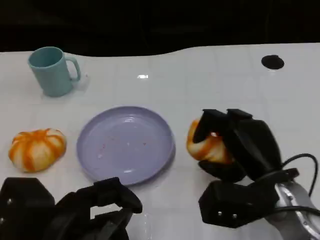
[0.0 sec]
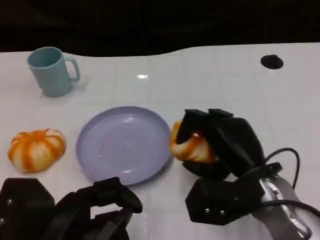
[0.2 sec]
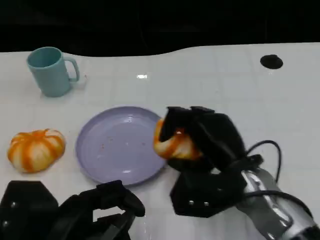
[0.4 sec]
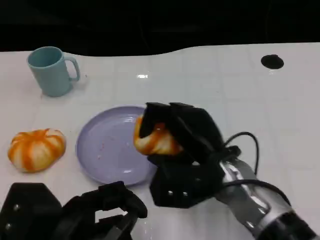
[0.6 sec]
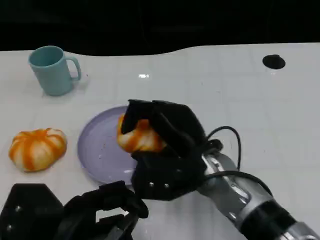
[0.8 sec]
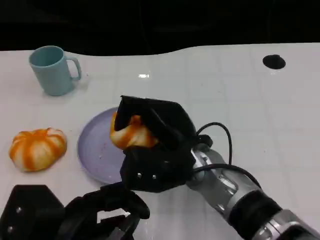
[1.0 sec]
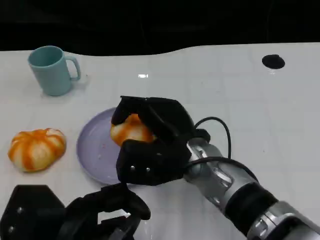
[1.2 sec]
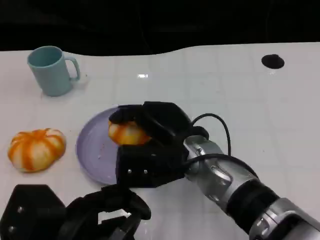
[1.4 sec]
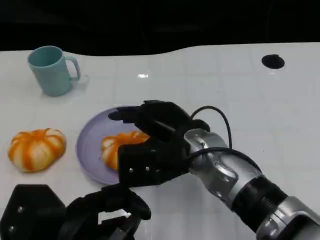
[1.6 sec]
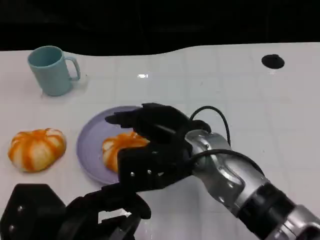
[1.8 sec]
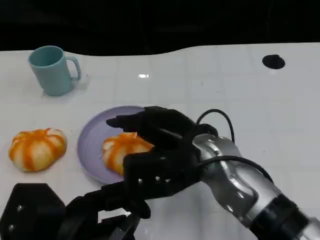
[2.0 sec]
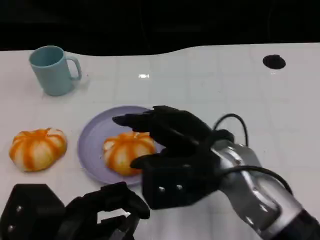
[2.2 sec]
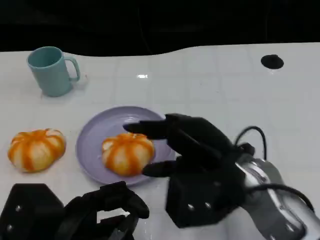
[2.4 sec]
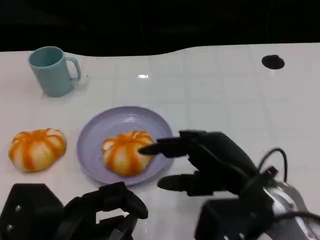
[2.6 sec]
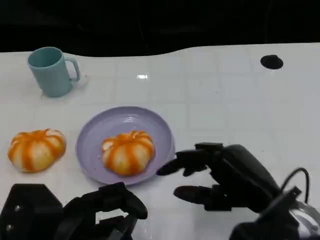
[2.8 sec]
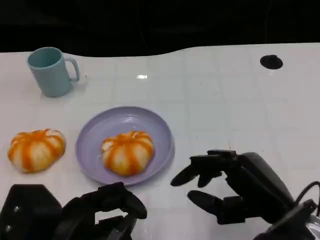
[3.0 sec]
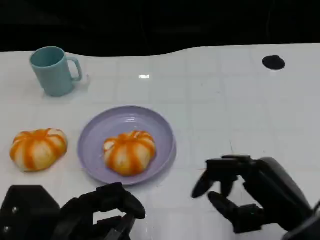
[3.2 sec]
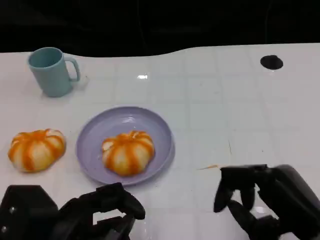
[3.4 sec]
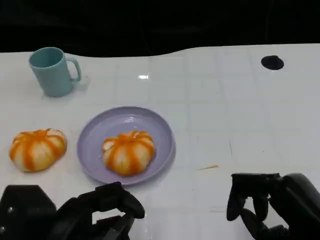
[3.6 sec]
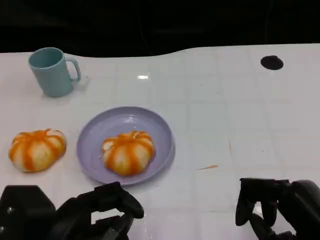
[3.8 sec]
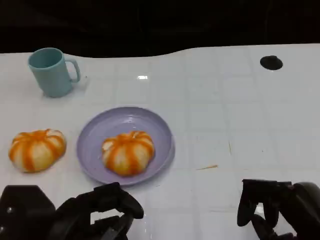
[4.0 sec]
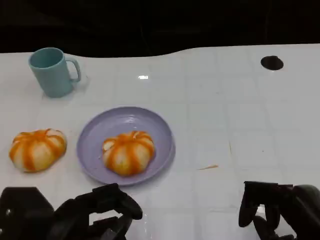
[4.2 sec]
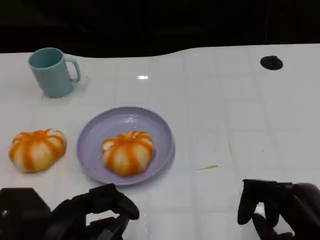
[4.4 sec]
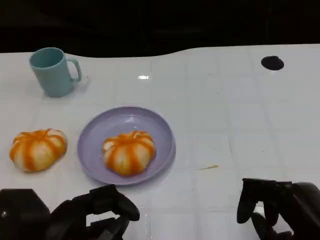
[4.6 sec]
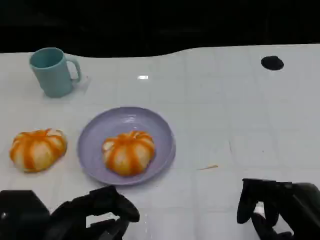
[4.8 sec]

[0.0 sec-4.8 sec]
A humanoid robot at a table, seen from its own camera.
Task of the whole recording: Grasp the bread from the table and place it into the plate.
0.0 sec to 1.6 sec: The right hand goes approximately 10 cm to the left.
1.6 sec to 3.2 sec: The right hand goes some 20 cm to the right and backward.
3.2 sec to 4.8 sec: The hands make only small movements.

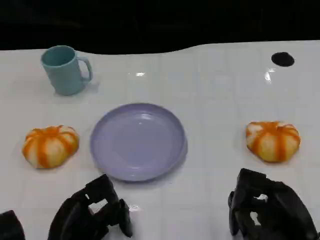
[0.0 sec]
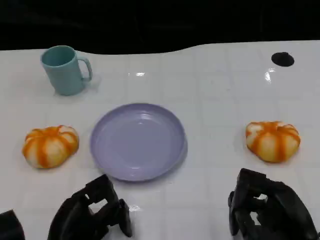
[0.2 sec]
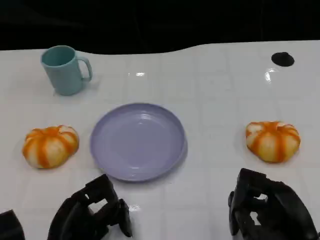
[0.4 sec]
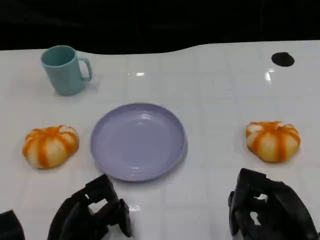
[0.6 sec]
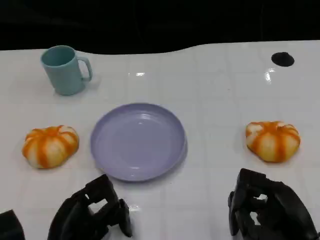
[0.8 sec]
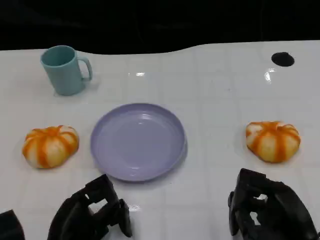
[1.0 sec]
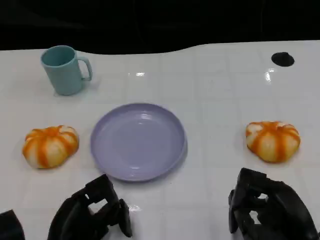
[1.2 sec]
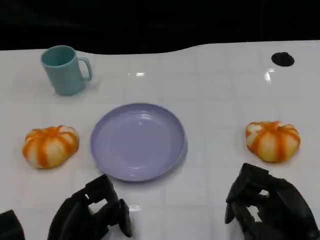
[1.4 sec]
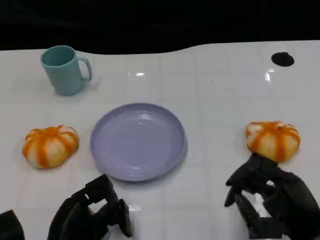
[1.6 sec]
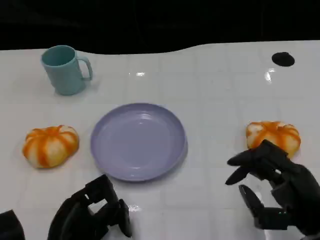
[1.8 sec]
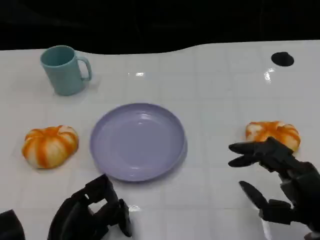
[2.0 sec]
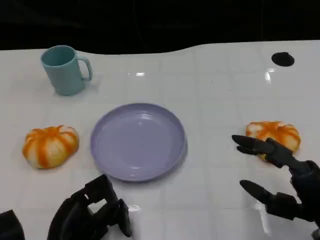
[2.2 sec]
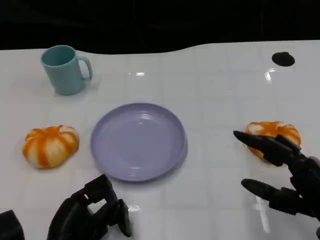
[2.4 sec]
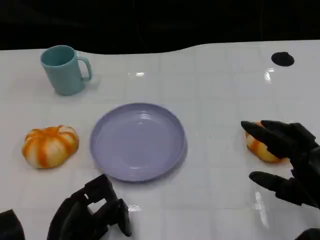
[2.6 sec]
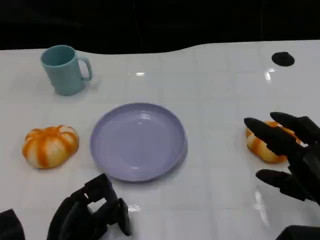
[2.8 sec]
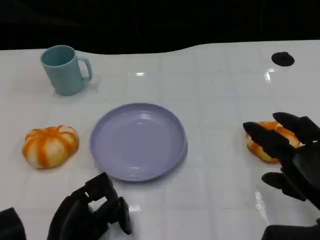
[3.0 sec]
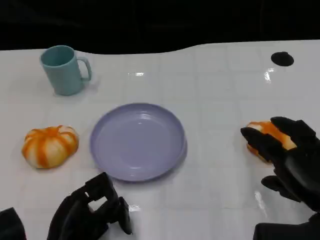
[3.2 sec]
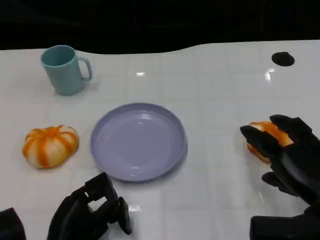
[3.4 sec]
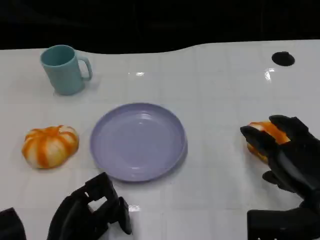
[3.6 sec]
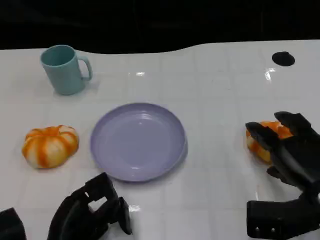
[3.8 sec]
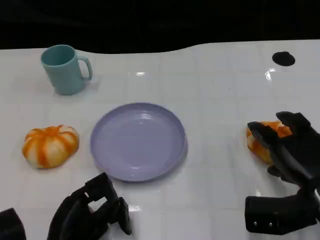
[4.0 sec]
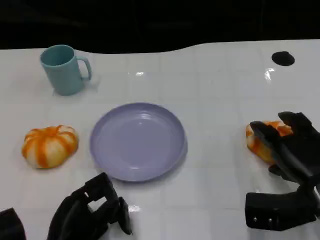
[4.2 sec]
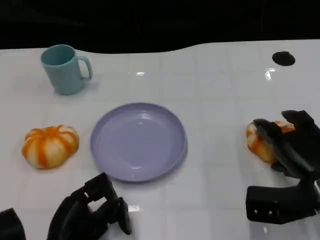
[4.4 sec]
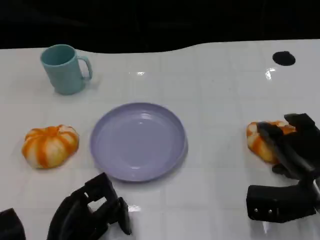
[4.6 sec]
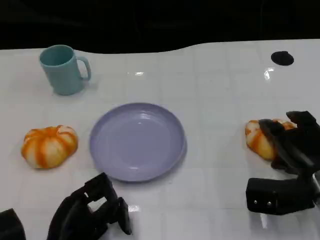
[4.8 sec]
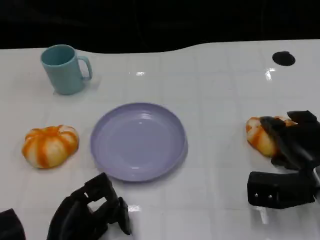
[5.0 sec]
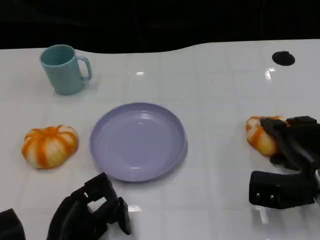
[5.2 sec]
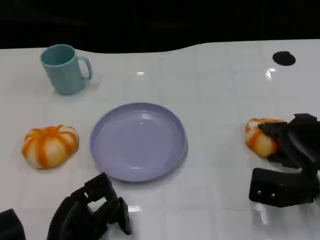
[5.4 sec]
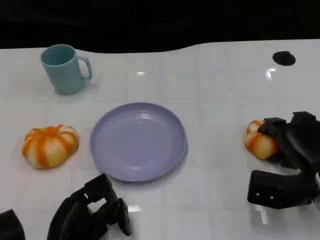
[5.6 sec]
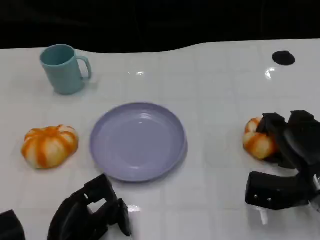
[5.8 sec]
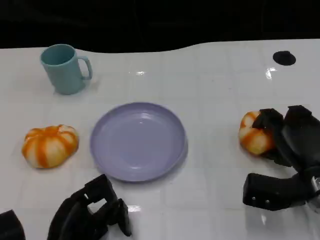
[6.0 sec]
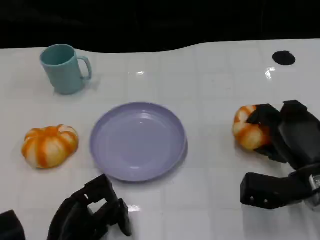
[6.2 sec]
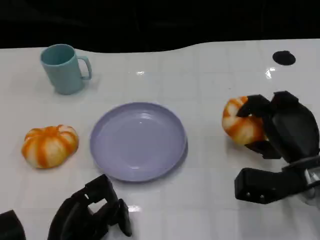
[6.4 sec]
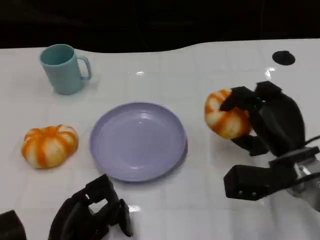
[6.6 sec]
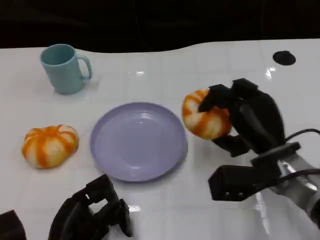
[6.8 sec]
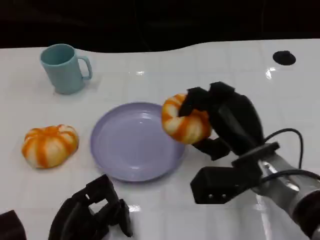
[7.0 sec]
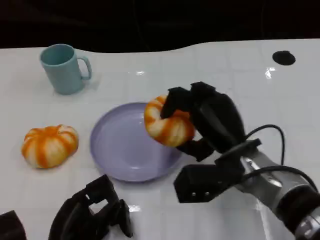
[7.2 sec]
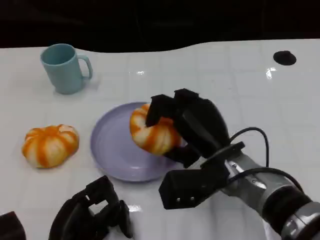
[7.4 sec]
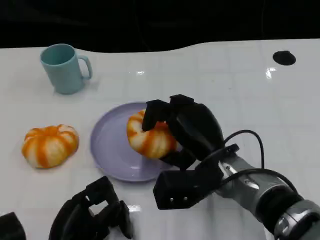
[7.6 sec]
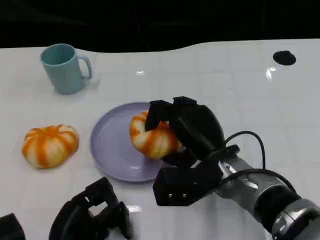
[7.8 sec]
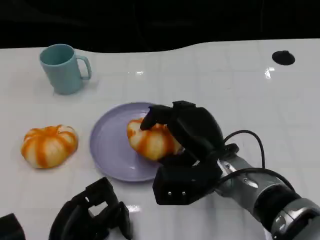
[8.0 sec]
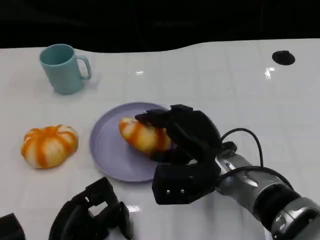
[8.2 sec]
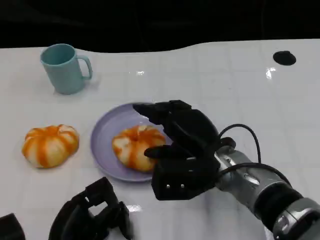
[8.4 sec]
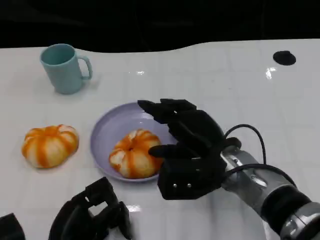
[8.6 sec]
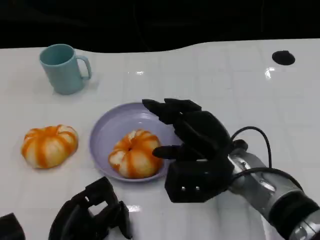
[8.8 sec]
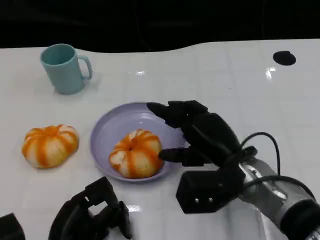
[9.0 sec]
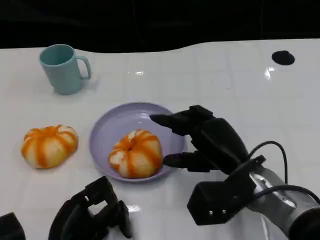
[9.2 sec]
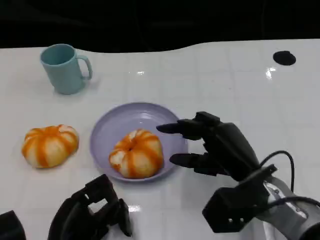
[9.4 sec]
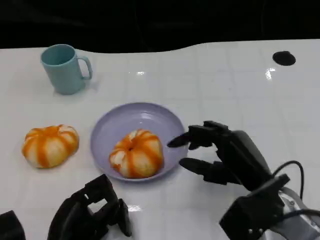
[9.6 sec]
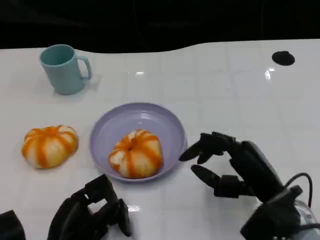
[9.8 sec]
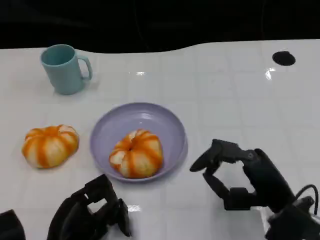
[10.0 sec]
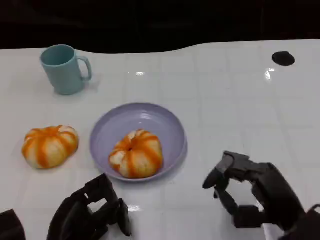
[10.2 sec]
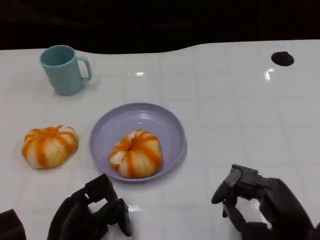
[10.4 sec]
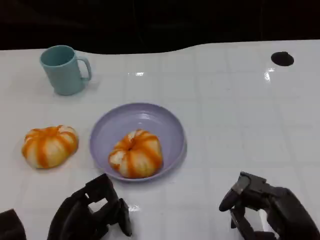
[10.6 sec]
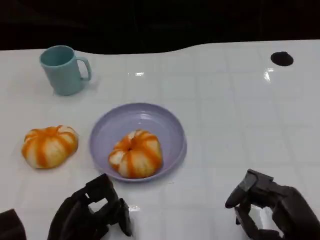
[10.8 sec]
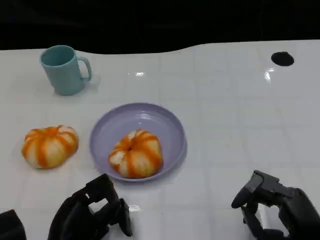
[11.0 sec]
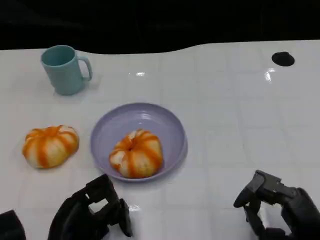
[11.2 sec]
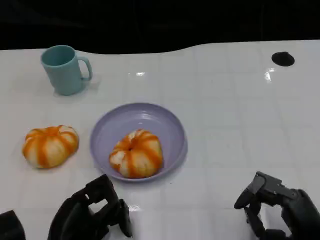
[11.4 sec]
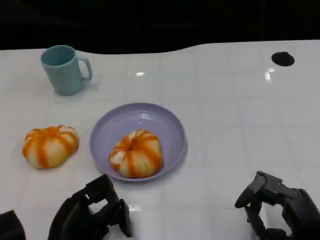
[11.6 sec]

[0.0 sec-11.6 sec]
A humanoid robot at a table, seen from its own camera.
Task of the whole recording: Grasp the bread from the table and place it into the plate.
0.0 sec to 1.4 sec: Both hands stay about where they are.
1.4 sec to 2.8 sec: The right hand is displaced upward by roughly 5 cm.
2.8 sec to 4.4 sec: The right hand heads forward, covering approximately 5 cm.
4.4 sec to 5.8 sec: The hands make only small movements.
5.8 sec to 7.2 sec: The right hand shifts roughly 15 cm to the left and upward.
8.8 sec to 10.2 sec: The right hand moves to the right and backward, some 15 cm.
10.2 sec to 11.6 sec: The hands stay close to where they were, moving slightly.

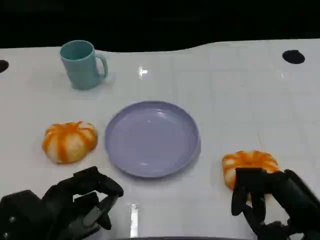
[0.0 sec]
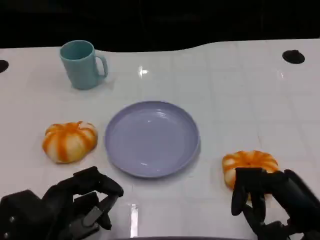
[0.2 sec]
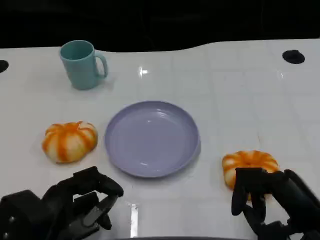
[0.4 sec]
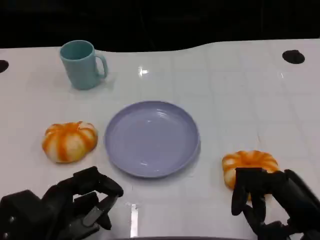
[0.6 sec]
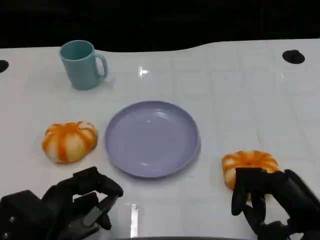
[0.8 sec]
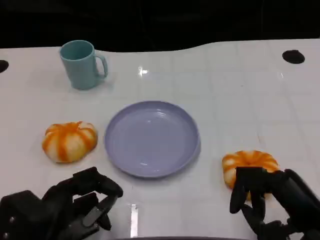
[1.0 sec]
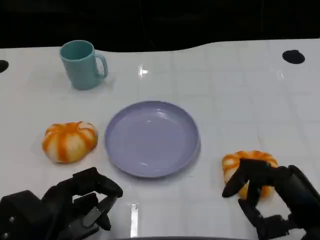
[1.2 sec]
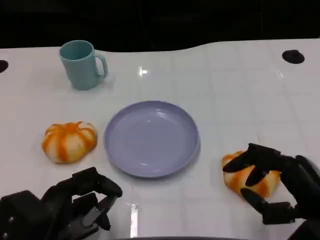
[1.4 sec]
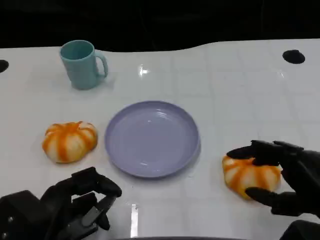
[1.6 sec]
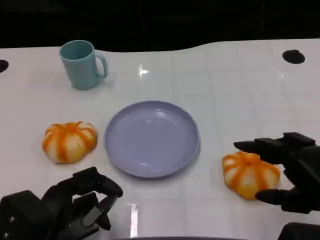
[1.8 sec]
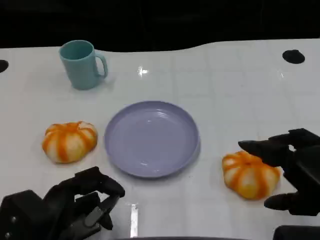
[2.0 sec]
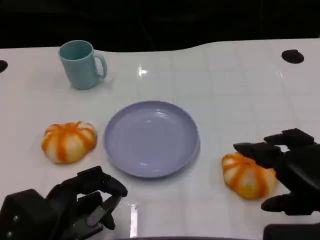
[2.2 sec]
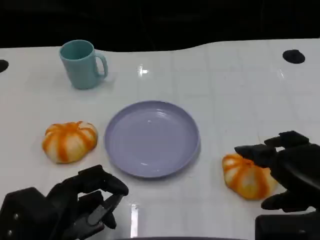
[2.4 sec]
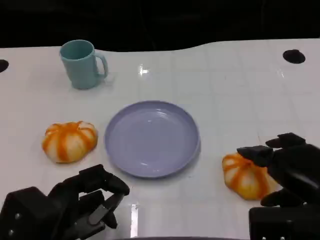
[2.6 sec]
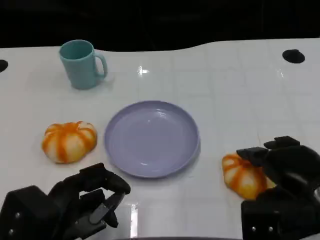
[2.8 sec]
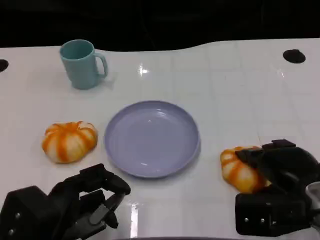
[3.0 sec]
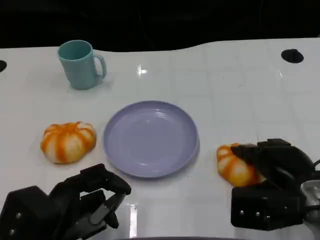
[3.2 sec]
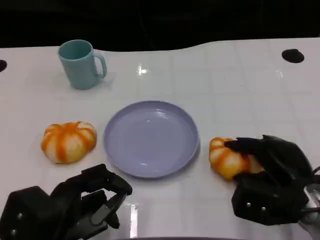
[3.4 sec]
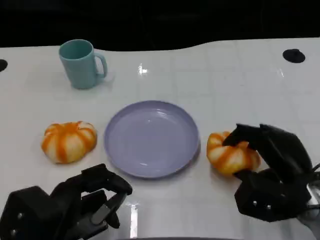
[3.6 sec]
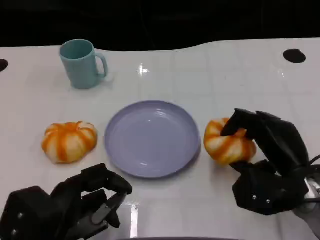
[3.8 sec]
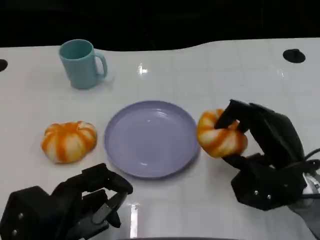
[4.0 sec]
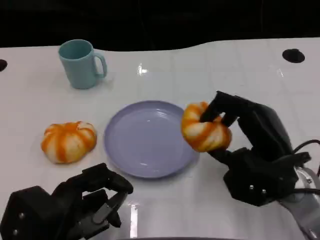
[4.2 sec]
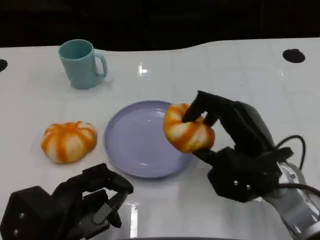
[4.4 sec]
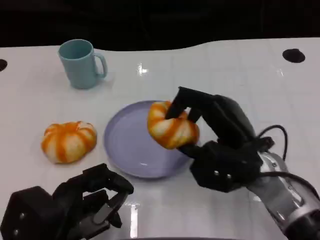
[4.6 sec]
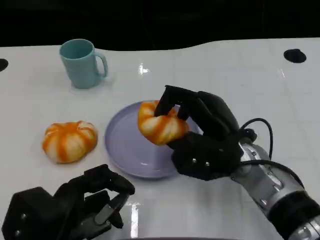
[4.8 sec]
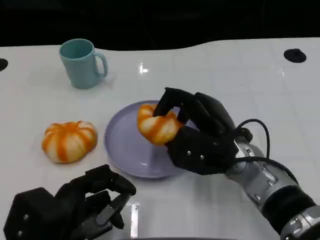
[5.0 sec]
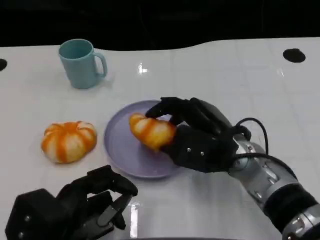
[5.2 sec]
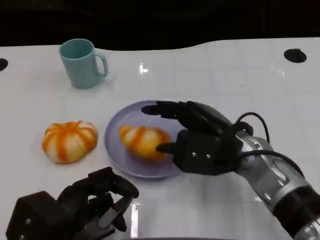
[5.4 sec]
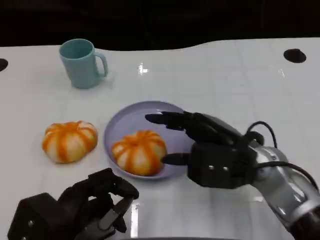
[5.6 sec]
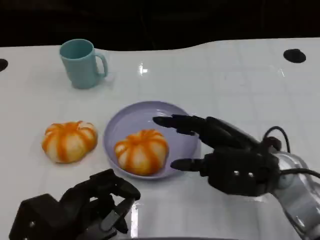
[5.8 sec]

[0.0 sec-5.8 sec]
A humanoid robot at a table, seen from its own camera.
Task of the whole recording: Grasp the bread from the table and place it into the plate.
0.0 sec to 1.4 sec: The hands stay close to where they were, moving slightly.
1.4 sec to 2.8 sec: The right hand heads forward, covering approximately 5 cm.
2.8 sec to 4.4 sec: The right hand heads to the left, covering approximately 5 cm.
